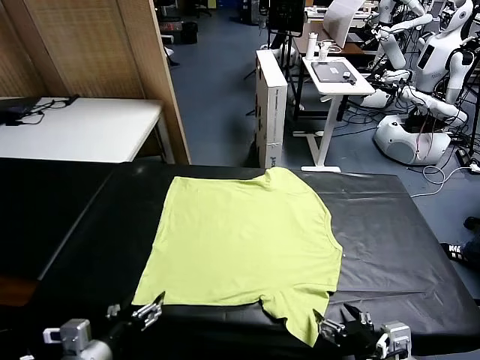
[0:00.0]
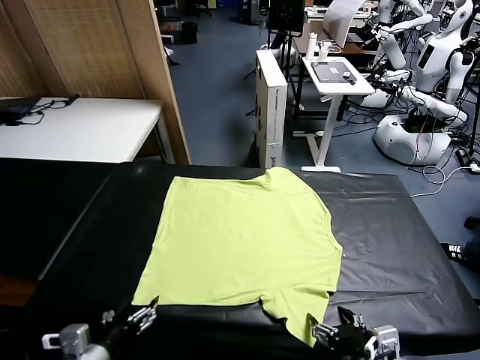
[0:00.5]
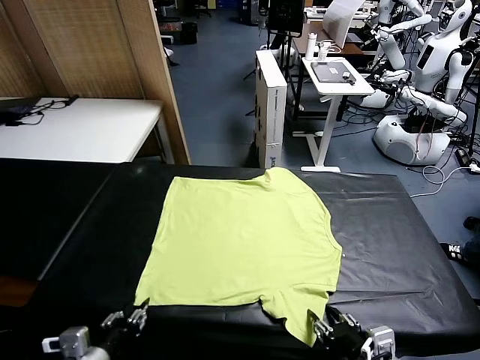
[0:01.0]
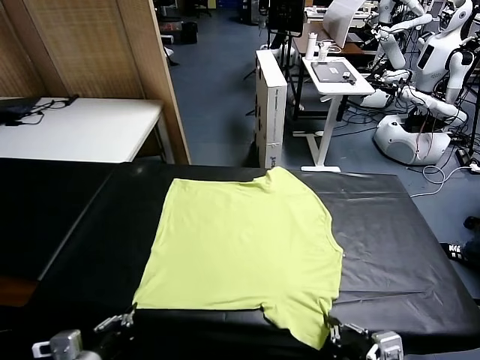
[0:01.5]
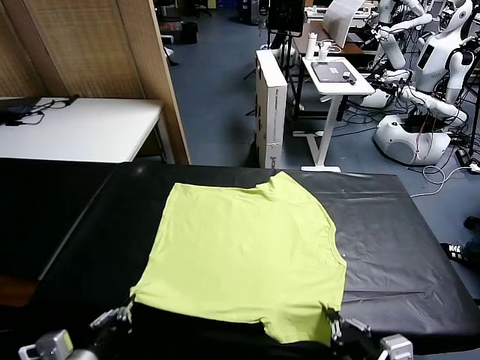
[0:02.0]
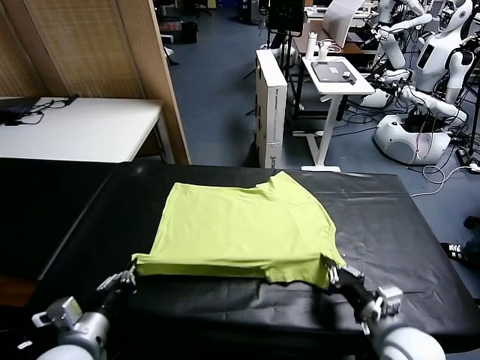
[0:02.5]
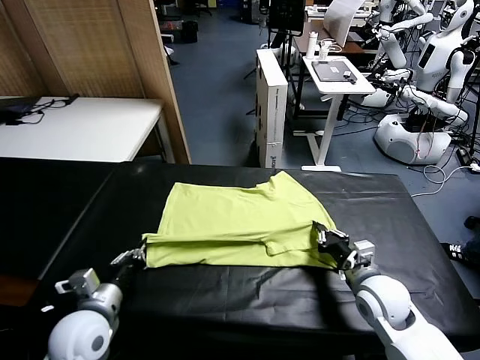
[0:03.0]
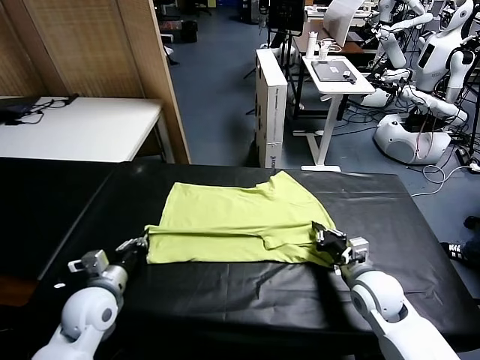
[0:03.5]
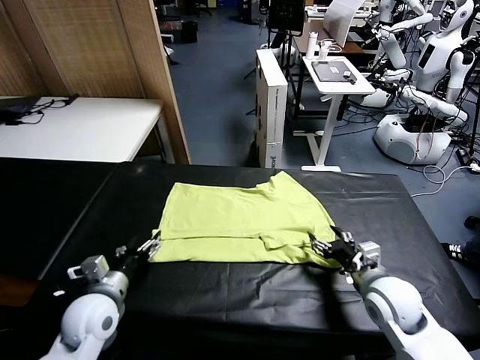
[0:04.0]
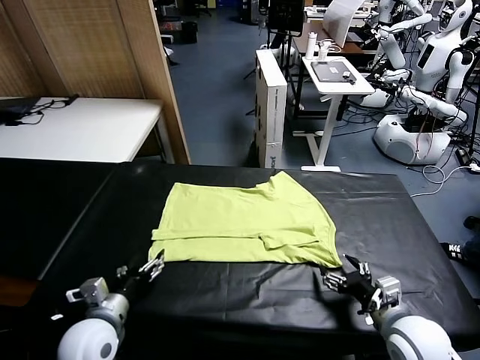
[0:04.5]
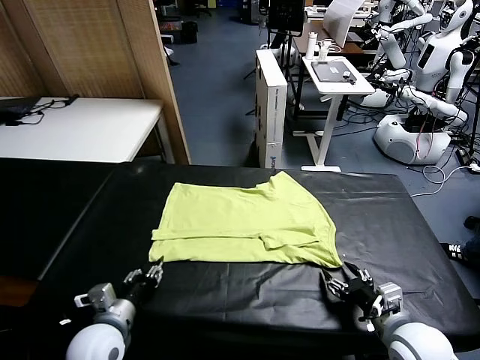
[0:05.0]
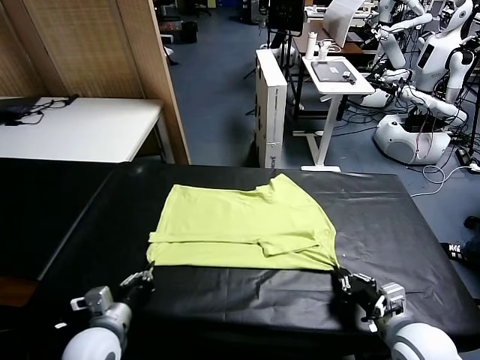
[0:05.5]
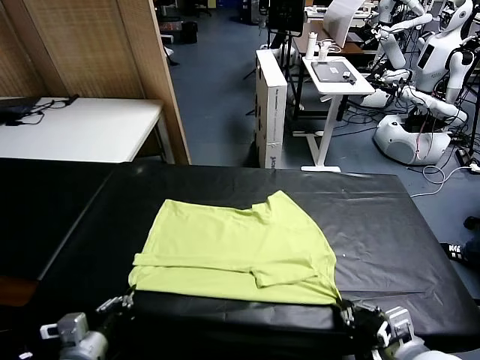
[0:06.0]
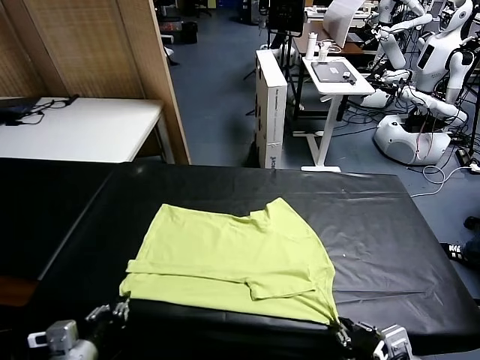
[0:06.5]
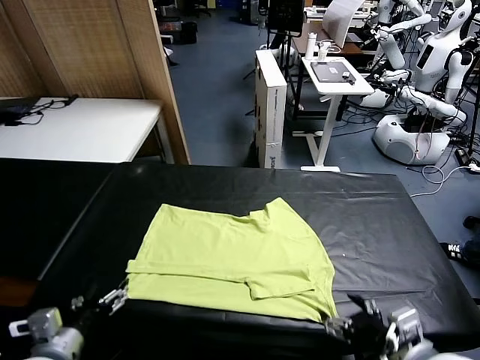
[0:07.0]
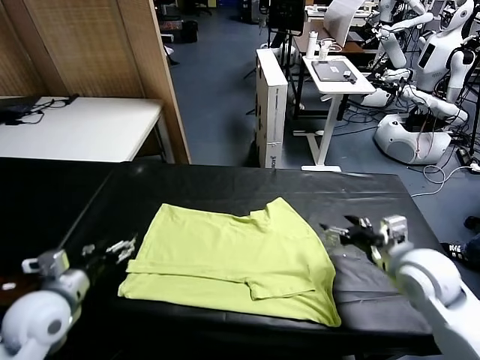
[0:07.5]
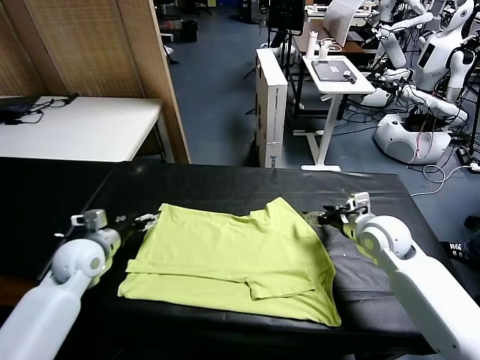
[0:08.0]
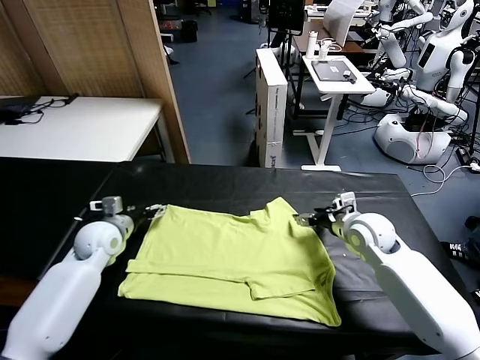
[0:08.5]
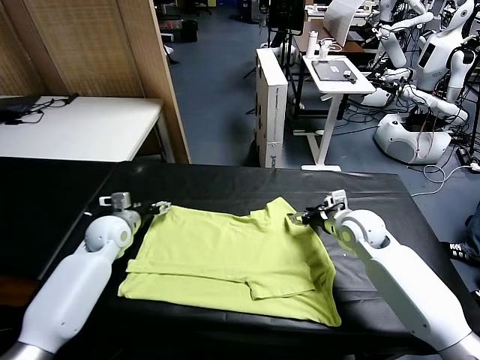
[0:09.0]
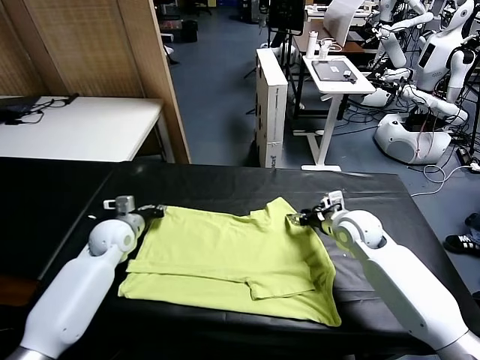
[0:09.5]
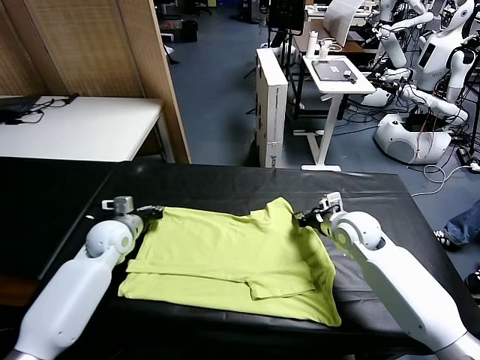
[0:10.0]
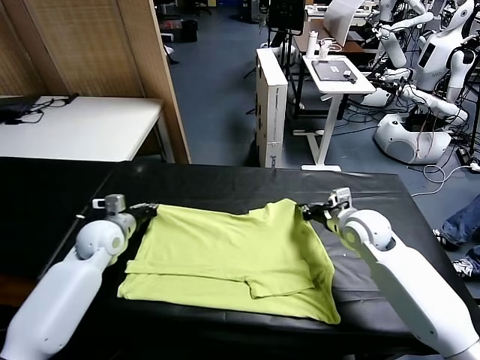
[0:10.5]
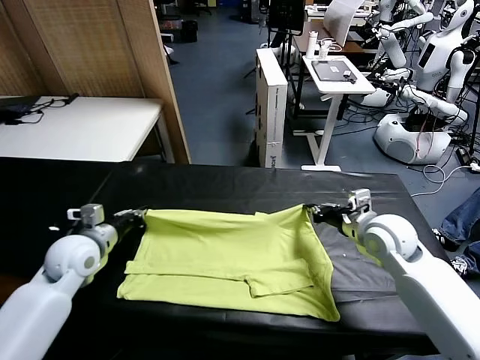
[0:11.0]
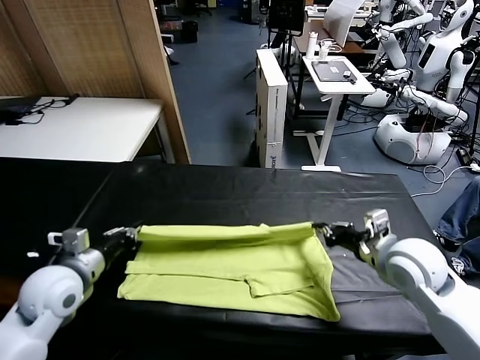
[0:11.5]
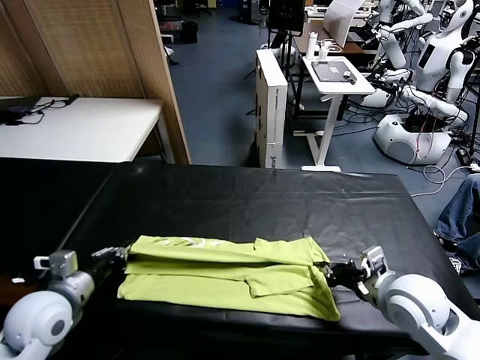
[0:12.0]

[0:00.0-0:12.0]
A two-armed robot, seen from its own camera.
Task of the whole recording: fold and organize the clothes.
Step, 0:00.0 to 0:01.5: use both grippers simultaneously to clamp the lower edge of the clothing fabric.
Step, 0:02.0 to 0:04.0: use both grippers to drag the lower edge of the fabric forward and fold it over the upper edge.
Step, 0:04.5 to 0:06.5: Drag the clothes downward with both gripper.
Step, 0:07.0 to 0:10.0: use both grippers simultaneously to clamp the upper edge of the clothing fabric.
0:02.0 to 0:04.0: Both grippers move forward, roughly 15 cm. The right gripper opens up. The left gripper opens up.
0:04.0 to 0:06.0: Both grippers move backward, roughly 10 cm. The right gripper closes up. The left gripper closes its fingers.
0:06.0 to 0:08.0: Both grippers travel together forward, about 25 cm. The right gripper opens up, while the left gripper opens up.
0:08.0 to 0:10.0: The right gripper closes. Meanwhile the left gripper travels forward by some 5 cm, and closes up.
0:10.0 to 0:12.0: The grippers both shift backward by about 20 cm.

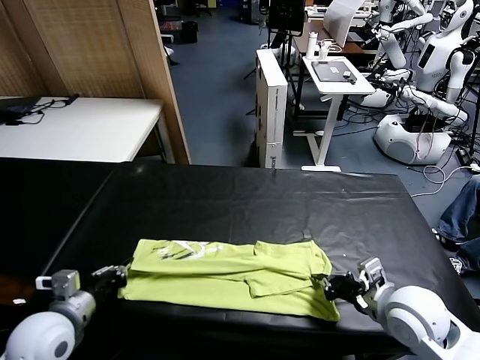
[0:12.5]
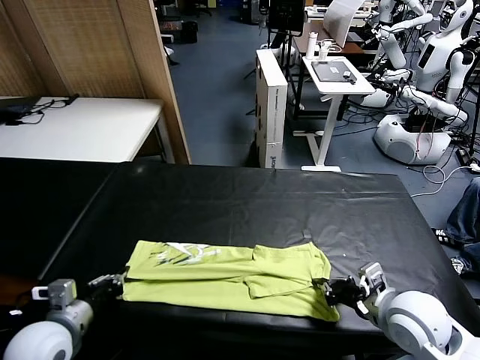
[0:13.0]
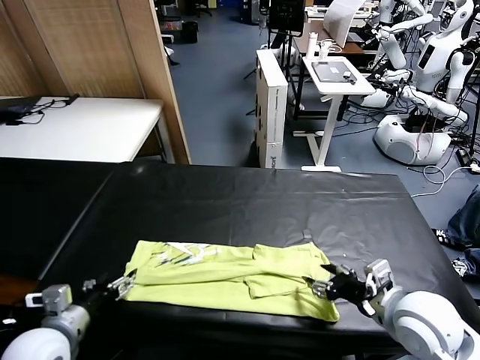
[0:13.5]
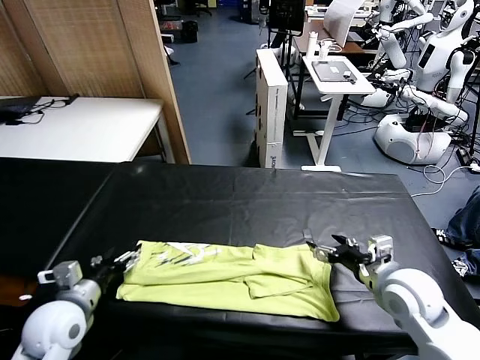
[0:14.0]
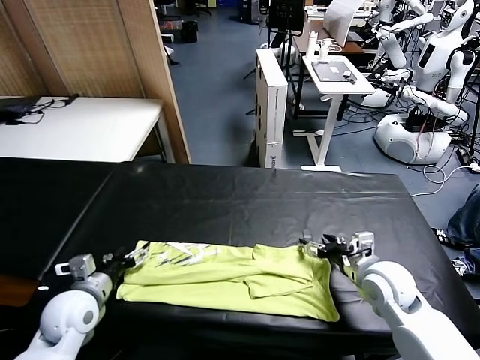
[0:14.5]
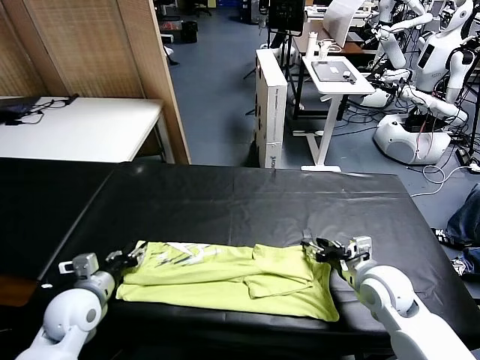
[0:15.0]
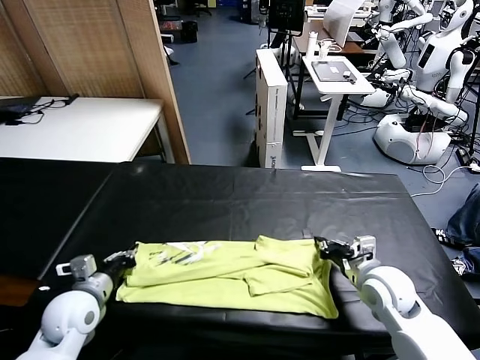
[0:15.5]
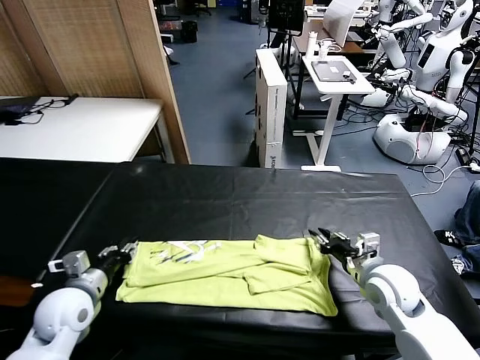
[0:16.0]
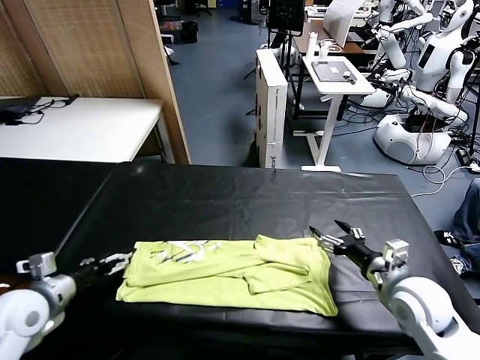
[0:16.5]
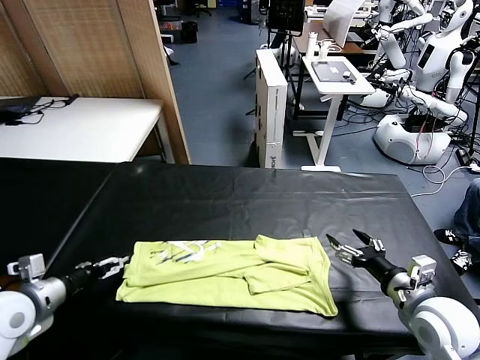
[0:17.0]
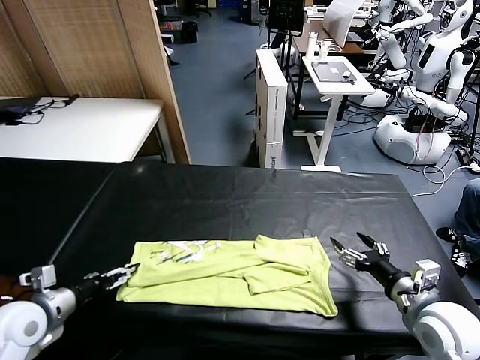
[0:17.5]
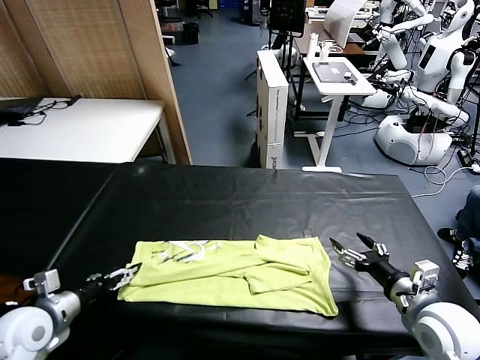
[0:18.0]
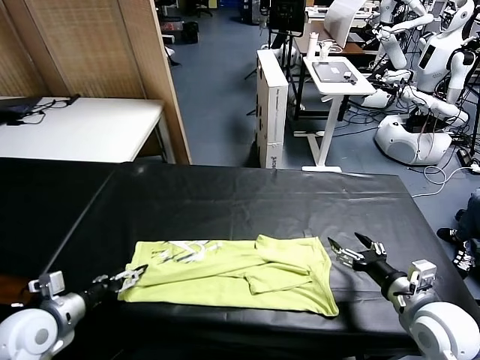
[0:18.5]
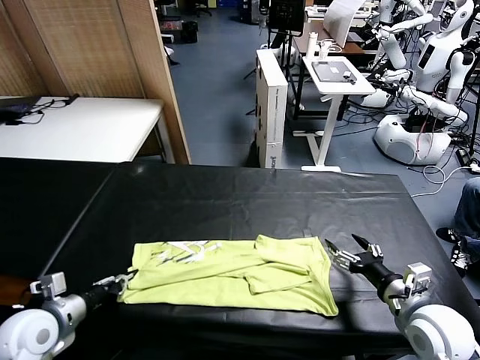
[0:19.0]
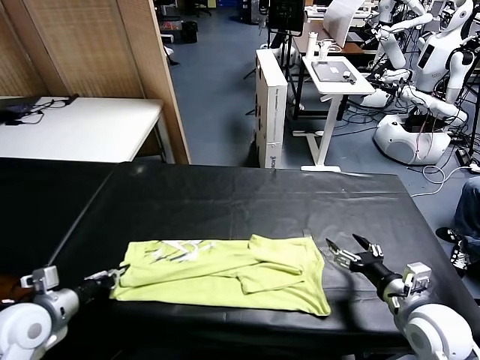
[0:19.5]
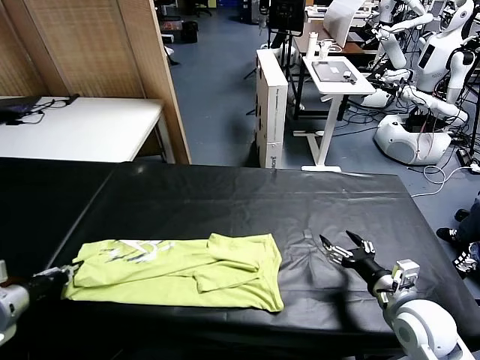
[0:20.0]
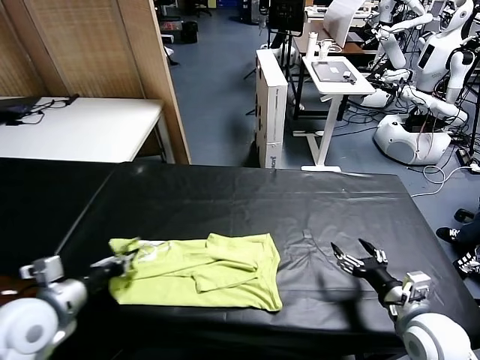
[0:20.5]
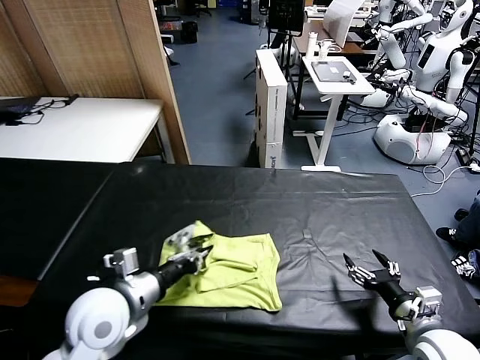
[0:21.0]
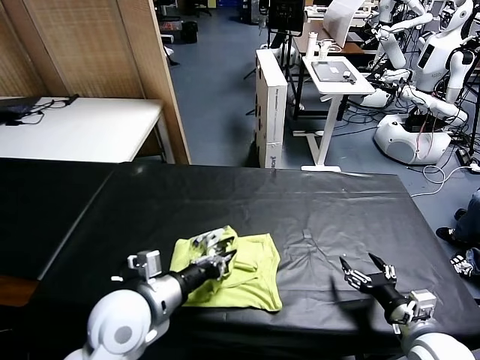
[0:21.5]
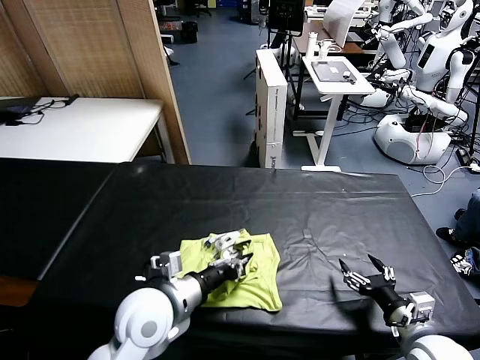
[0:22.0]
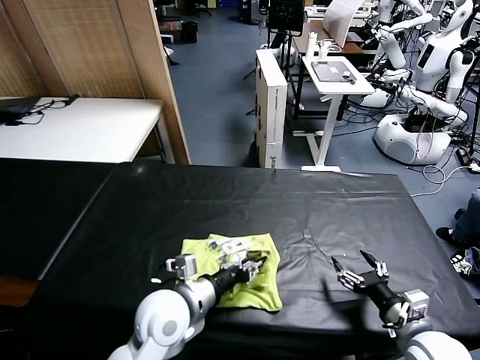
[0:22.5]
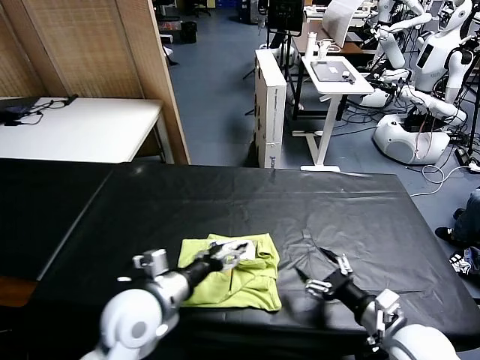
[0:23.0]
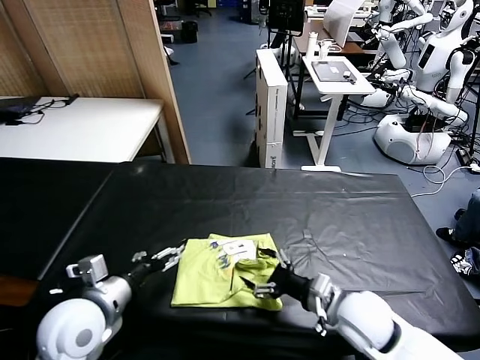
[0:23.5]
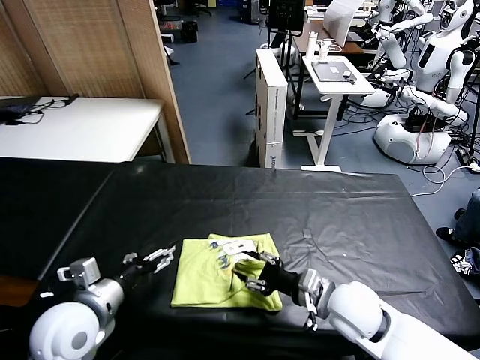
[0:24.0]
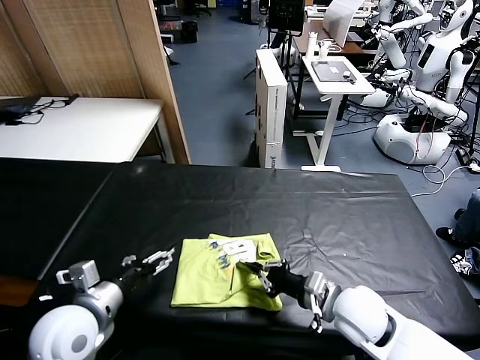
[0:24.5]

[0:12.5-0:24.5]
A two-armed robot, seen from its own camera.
Task of the whole recording: fold and organize the clothes.
Step, 0:14.0 to 0:19.5: use the left gripper to clamp the left edge of the fabric.
Step, 0:20.0 to 0:22.5: use the left gripper to drag the left edge of the fabric to the left and folds it over the right edge.
0:12.5 to 0:14.5: Both grippers travel together forward, approximately 5 cm. The right gripper opens its fingers. The left gripper opens.
0:14.5 to 0:16.5: The right gripper travels backward by approximately 5 cm, and closes, then reopens. The left gripper is displaced to the left and upward by about 10 cm, and closes, then reopens.
0:16.5 to 0:18.5: There are only small adjustments of the grippers.
0:18.5 to 0:20.5: The left gripper moves upward, about 5 cm, reaches approximately 5 cm to the left, then returns, and closes.
0:20.5 to 0:22.5: The left gripper moves to the right, about 20 cm.
0:22.5 to 0:24.5: The left gripper travels to the left by about 15 cm, and opens up; the right gripper is displaced to the left and forward by approximately 15 cm, and closes.

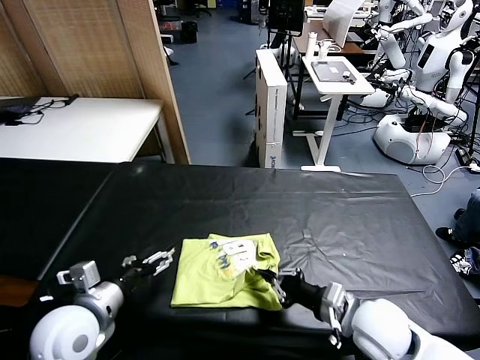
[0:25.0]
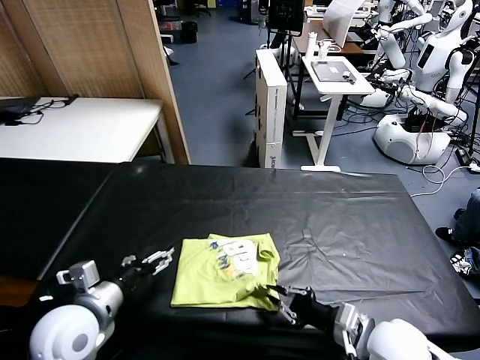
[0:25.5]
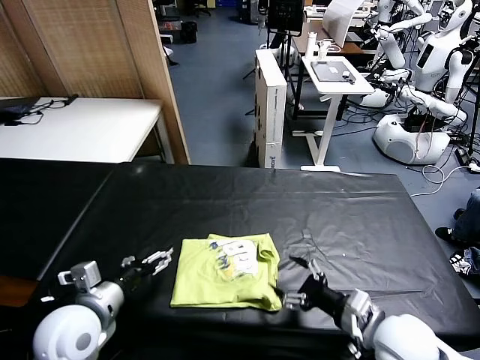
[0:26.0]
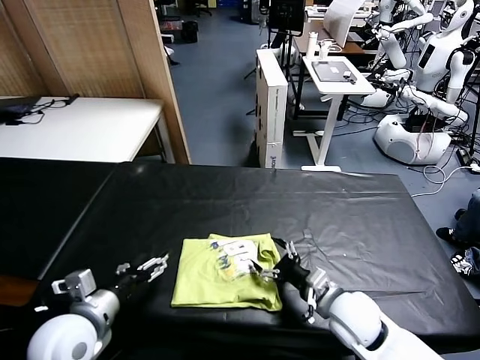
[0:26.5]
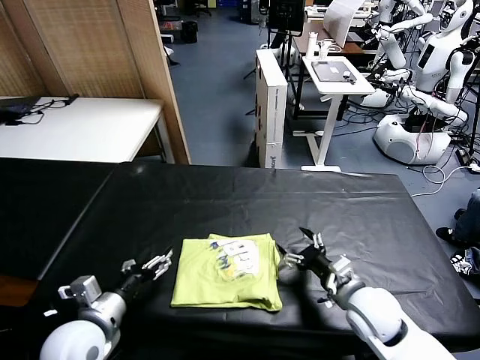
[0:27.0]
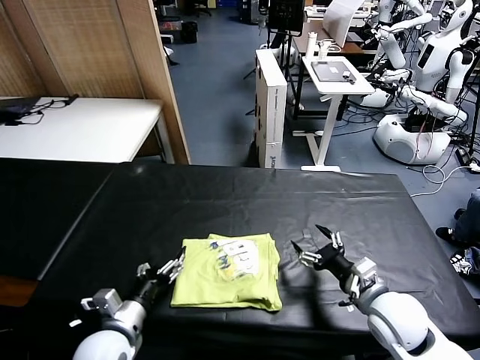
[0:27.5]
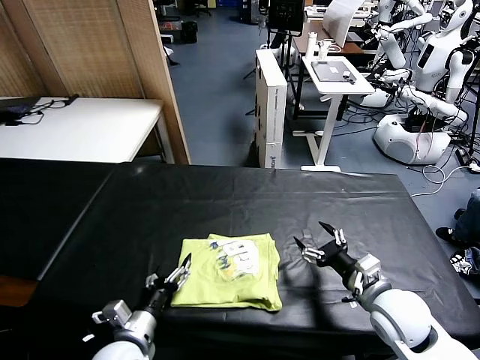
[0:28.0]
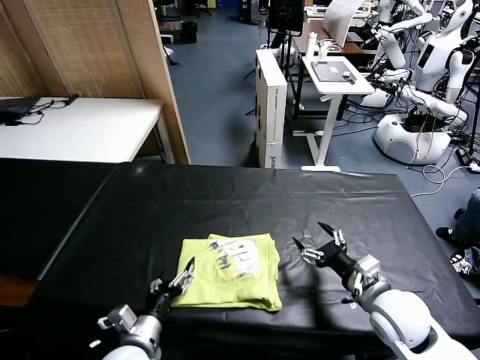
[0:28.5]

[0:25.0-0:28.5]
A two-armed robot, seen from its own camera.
Task of the whole recording: fold and organize the clothes.
0:25.0 to 0:27.0: The right gripper opens its fingers.
0:27.0 to 0:28.5: The left gripper moves downward and to the right, about 10 cm.
